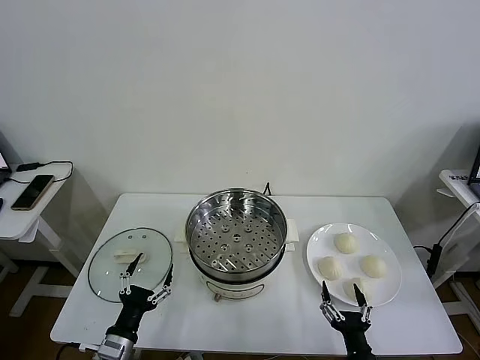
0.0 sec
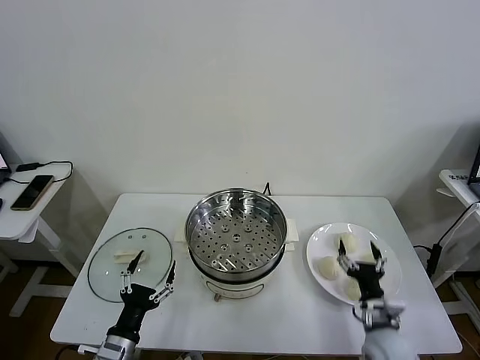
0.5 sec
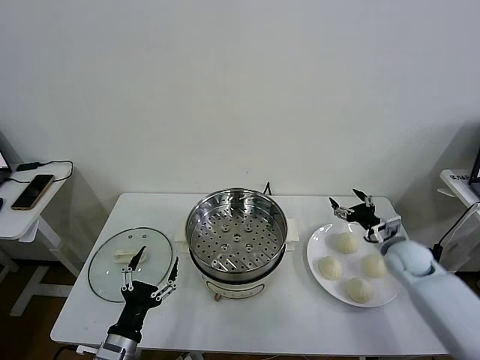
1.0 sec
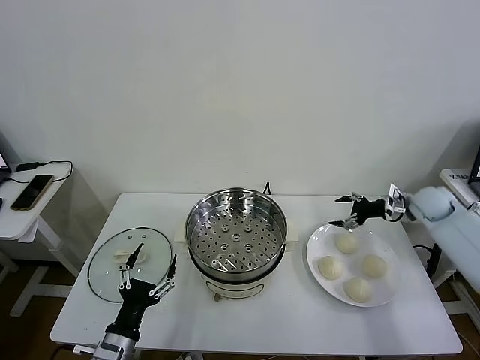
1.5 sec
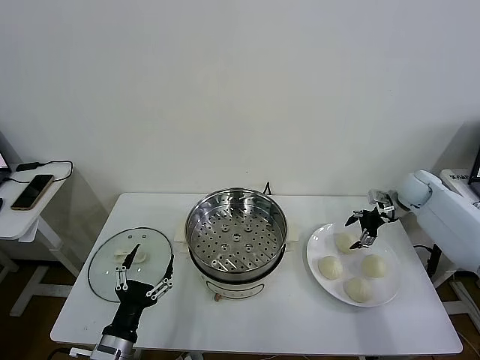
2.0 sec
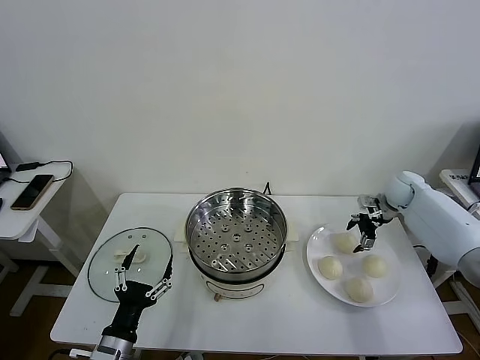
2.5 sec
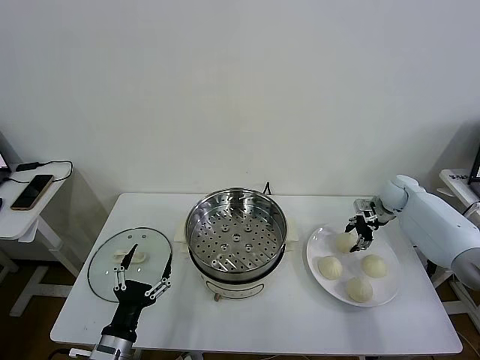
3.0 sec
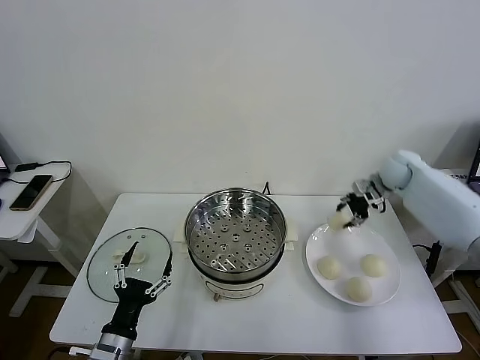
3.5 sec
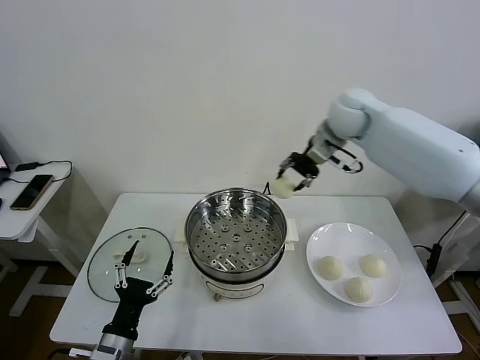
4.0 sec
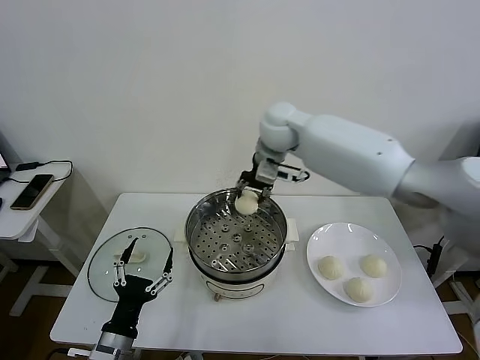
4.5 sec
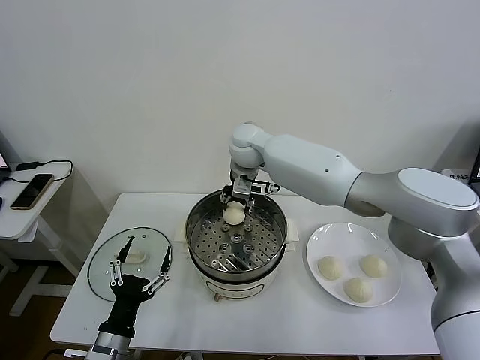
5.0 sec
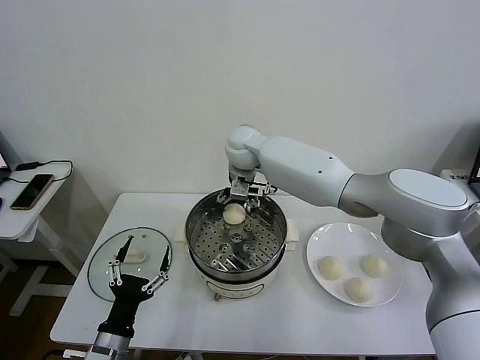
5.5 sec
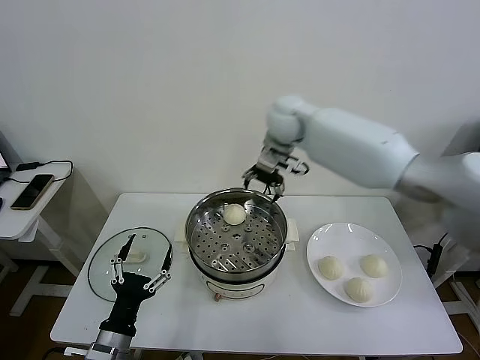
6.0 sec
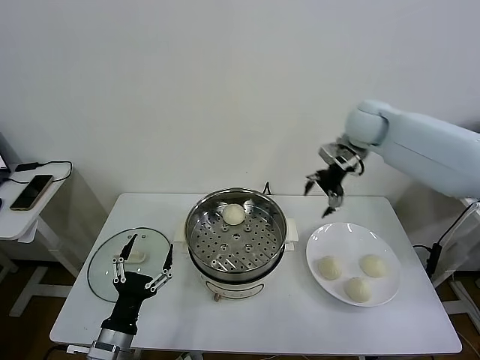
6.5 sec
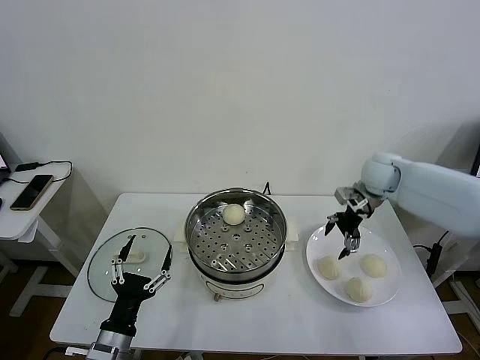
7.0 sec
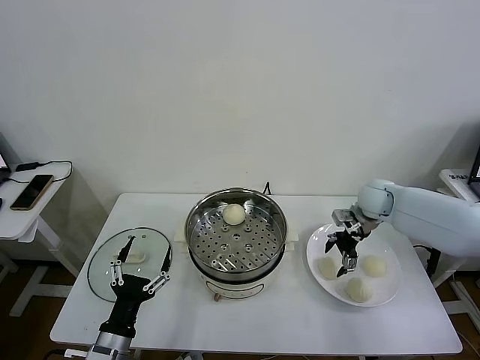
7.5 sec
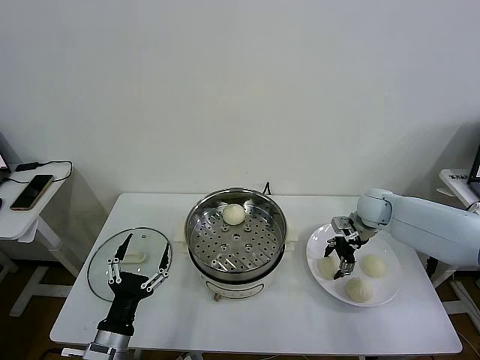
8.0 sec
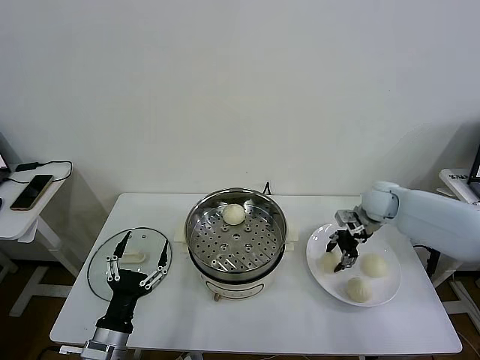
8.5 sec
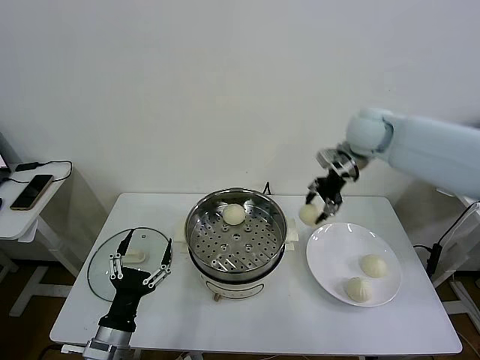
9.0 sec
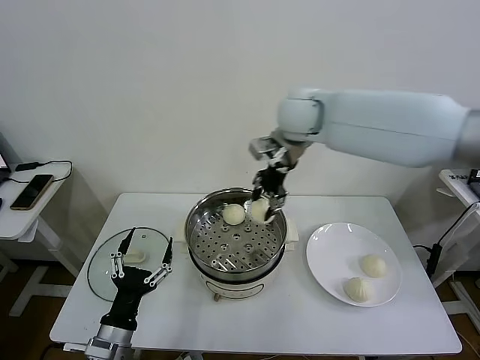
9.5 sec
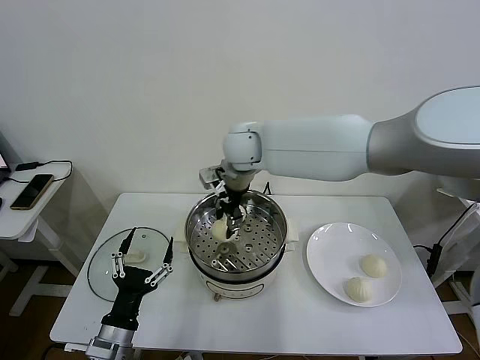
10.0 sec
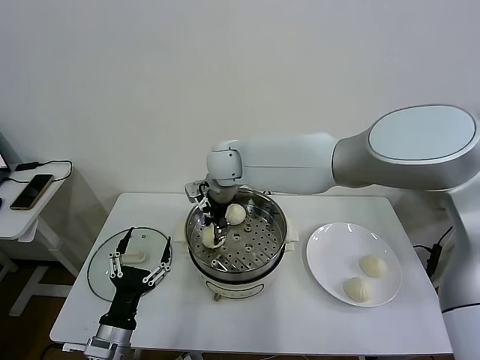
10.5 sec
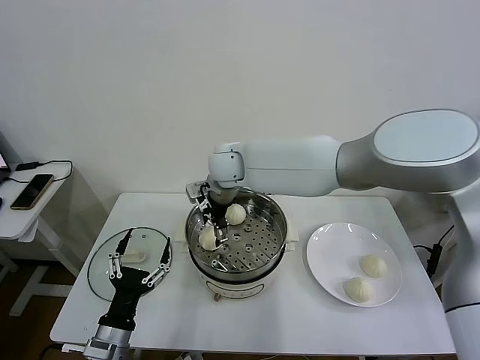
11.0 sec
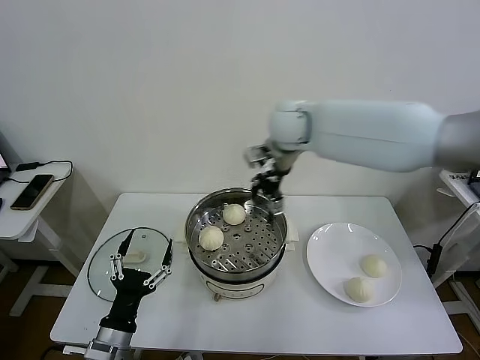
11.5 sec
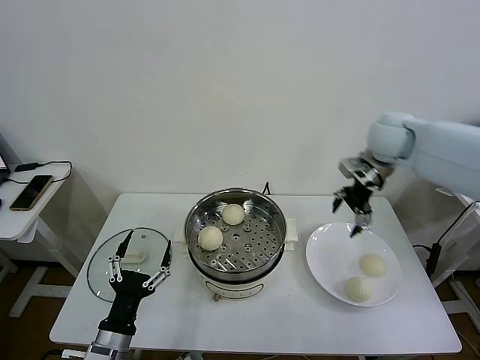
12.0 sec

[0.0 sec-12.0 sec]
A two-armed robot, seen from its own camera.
Task of the whole recording: take steamed baozi put them in steamer then cover it.
Step, 0.0 sec to 3.0 sec: Grasp the baozi in the plate with right gripper.
Step, 3.5 sec to 5.0 sec: Place the baozi on the steamer with right gripper.
Step, 5.5 sec to 8.0 sec: Grasp the baozi in the plate with right gripper.
Step, 8.5 sec to 10.5 sec: Place the baozi on the steamer with right gripper.
2.0 sec to 4.0 sec: The right gripper heads to the left and upward, covering about 35 cm, and closes its fingers.
4.0 sec to 6.0 sec: The right gripper goes to the left and returns, roughly 15 cm each way, and opens.
6.0 sec to 8.0 sec: The right gripper travels downward and to the right by about 30 cm, and closes up.
8.0 sec to 10.0 sec: The right gripper goes approximately 40 cm to the left and upward, and closes its fingers.
10.0 sec to 12.0 sec: The right gripper heads to the right, covering roughly 35 cm, and opens its fingers.

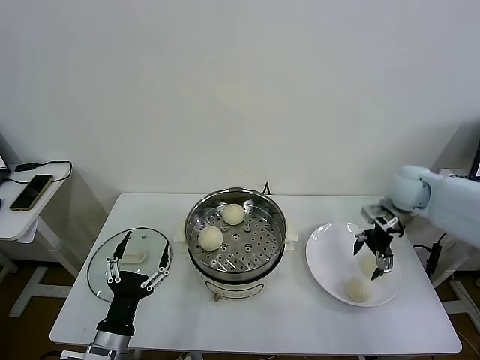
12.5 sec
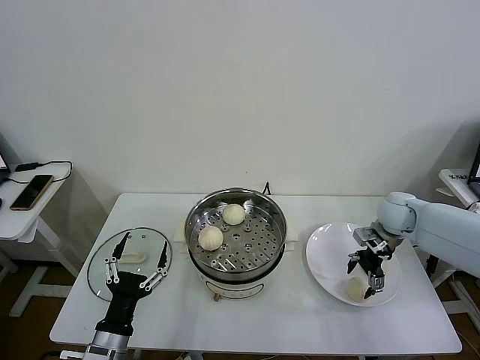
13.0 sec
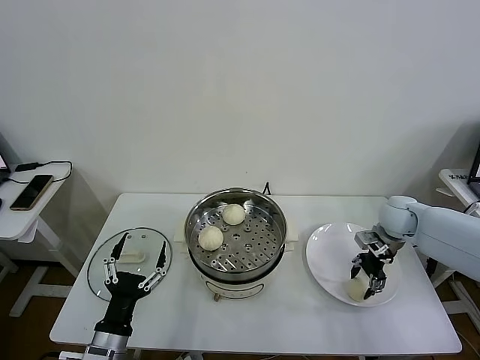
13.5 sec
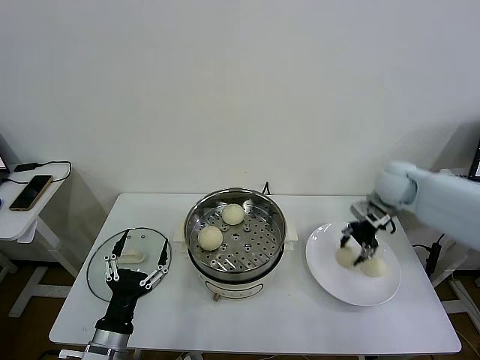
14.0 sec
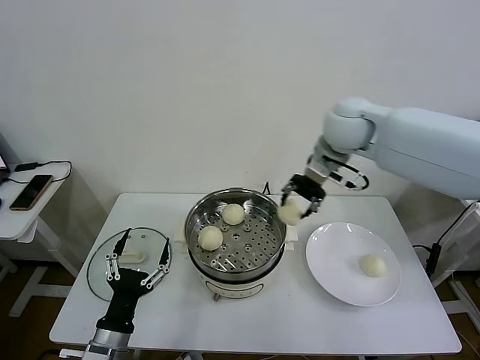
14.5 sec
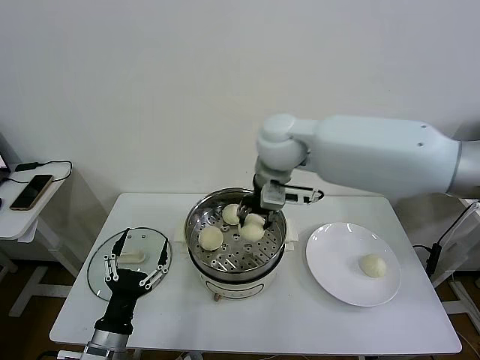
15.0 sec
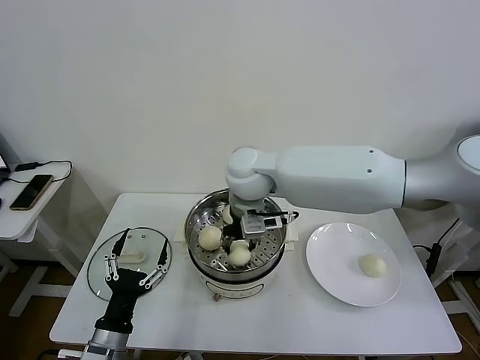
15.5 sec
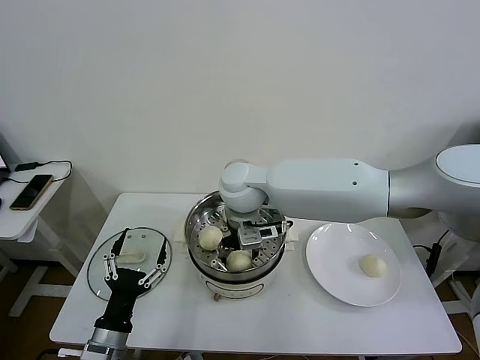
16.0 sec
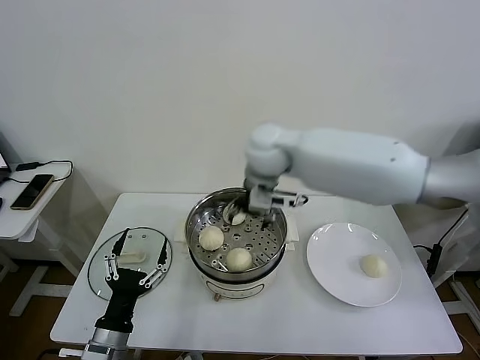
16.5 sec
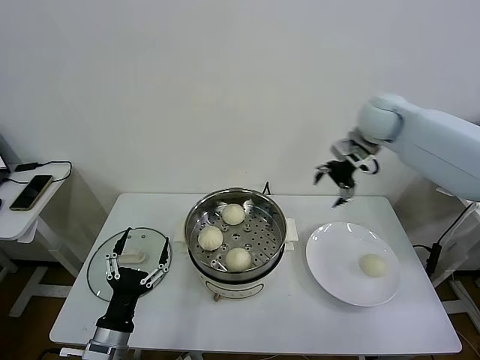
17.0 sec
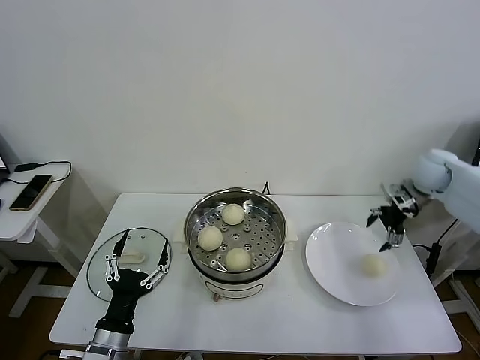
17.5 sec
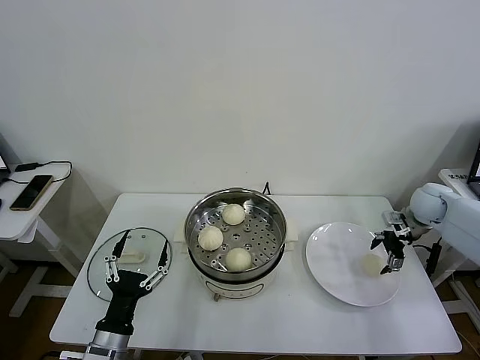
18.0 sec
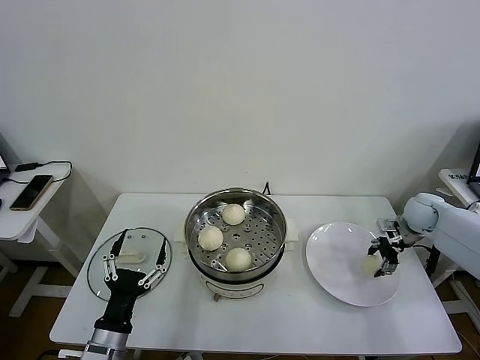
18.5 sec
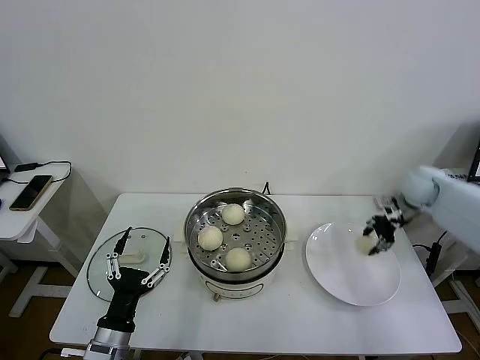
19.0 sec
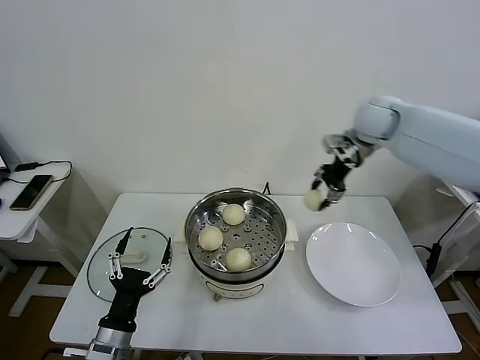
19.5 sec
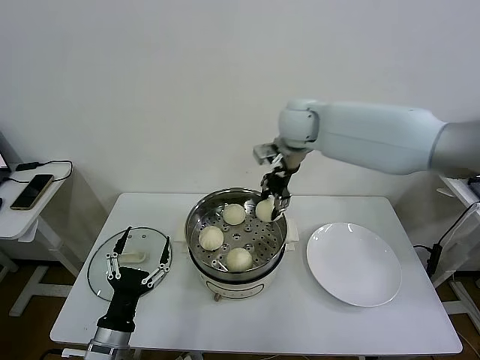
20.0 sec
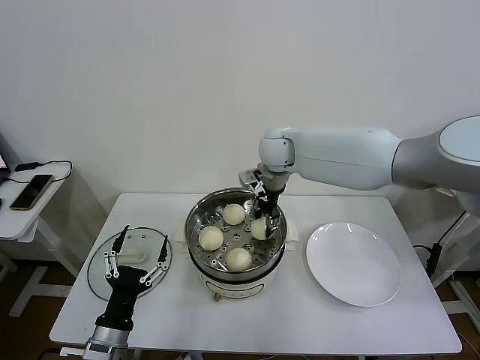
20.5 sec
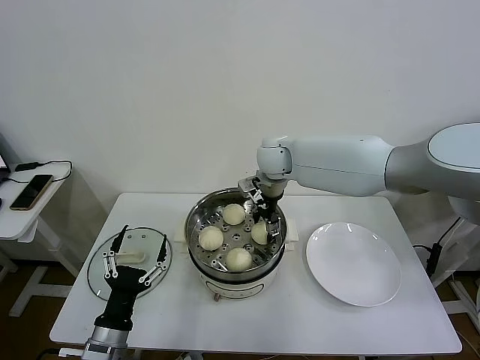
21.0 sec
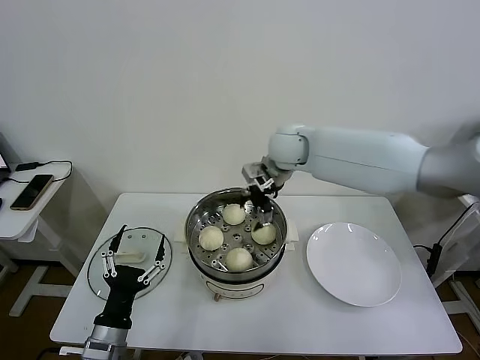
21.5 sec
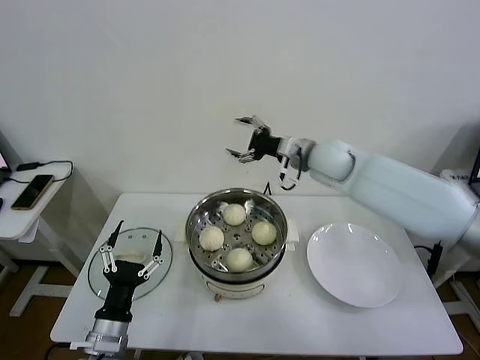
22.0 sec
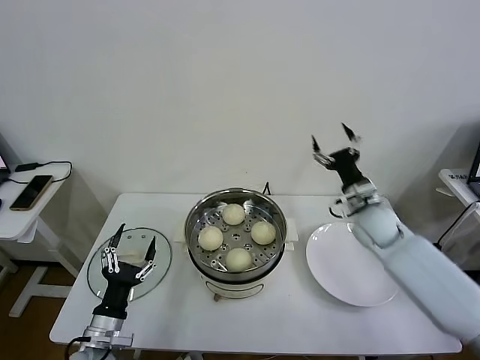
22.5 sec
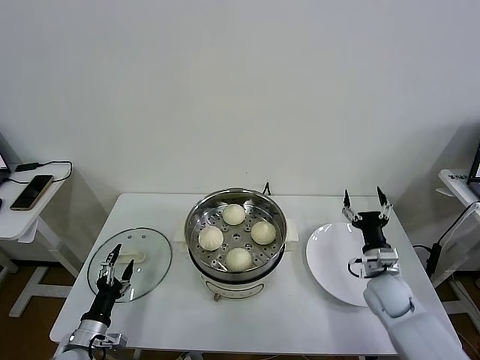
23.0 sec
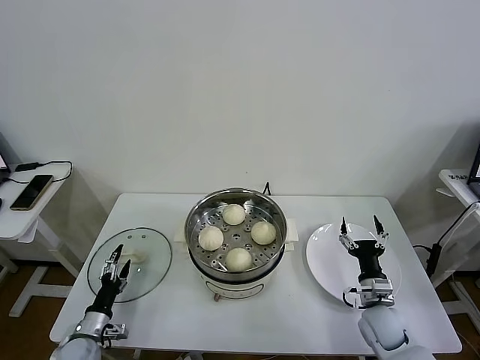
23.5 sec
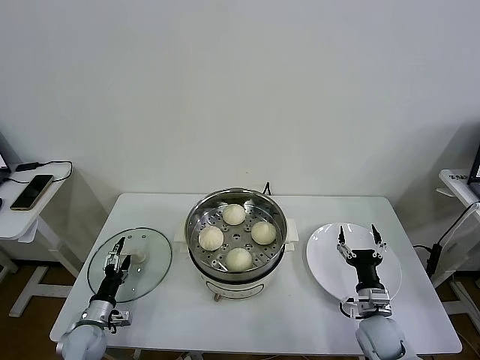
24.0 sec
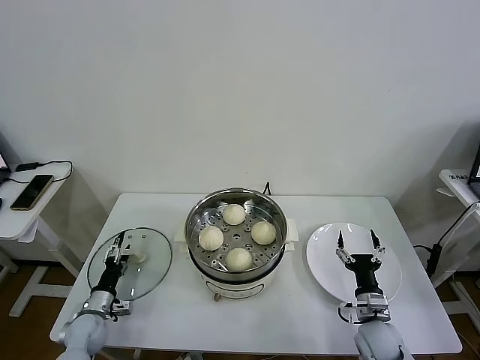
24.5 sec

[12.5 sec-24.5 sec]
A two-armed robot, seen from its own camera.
Task of the whole recording: take steamed baozi put them in steamer then cover it.
Step, 14.0 sec to 16.0 sec: Place the baozi on the steamer with right gripper.
Step, 16.5 sec to 18.5 sec: Grasp the baozi in the plate with right gripper.
Step, 19.0 sec to 21.0 sec: Place the baozi on the steamer with right gripper.
12.5 sec to 14.5 sec: The right gripper moves to the left and upward, approximately 30 cm, and closes its fingers.
14.5 sec to 16.5 sec: The right gripper is displaced to the left by about 10 cm, and opens.
16.5 sec to 18.5 sec: The right gripper travels to the right and downward by roughly 40 cm, and closes.
18.5 sec to 20.5 sec: The right gripper heads to the left and upward, covering approximately 40 cm.
20.5 sec to 22.5 sec: The right gripper heads to the right, downward and backward, covering some 30 cm, and opens up. Meanwhile the left gripper ends up some 5 cm from where it was.
22.5 sec to 24.5 sec: The right gripper goes roughly 25 cm backward and downward. Meanwhile the left gripper travels downward, to the left and forward by some 20 cm.

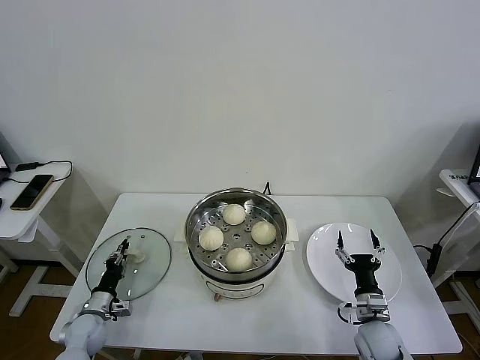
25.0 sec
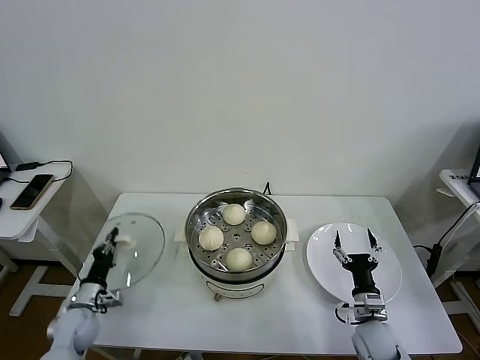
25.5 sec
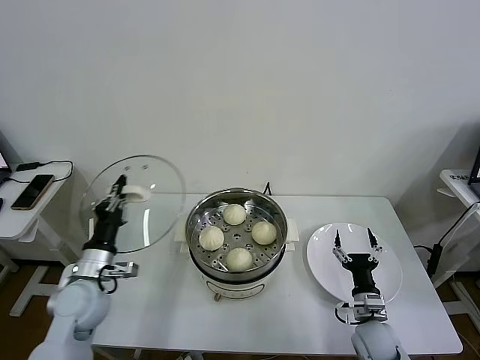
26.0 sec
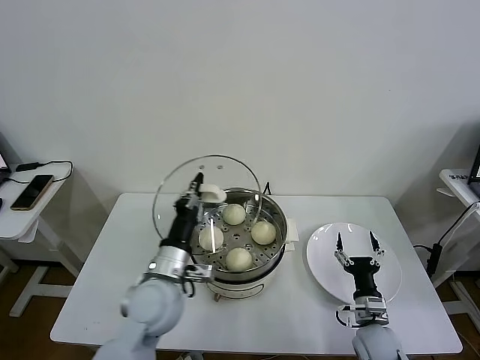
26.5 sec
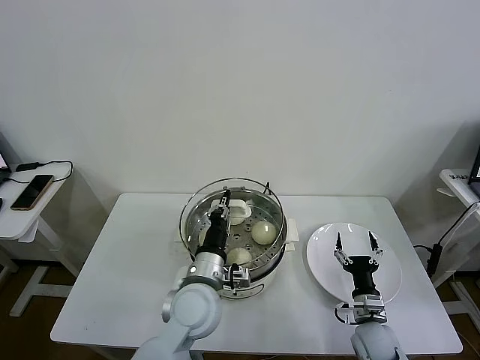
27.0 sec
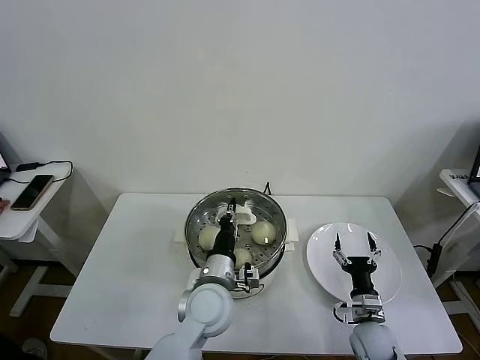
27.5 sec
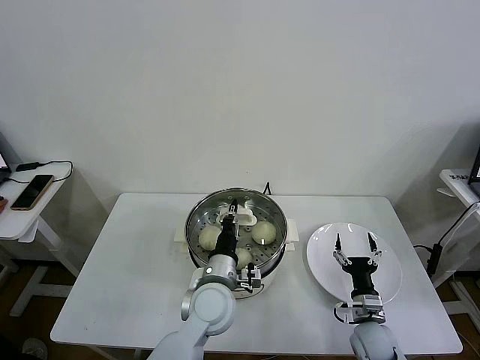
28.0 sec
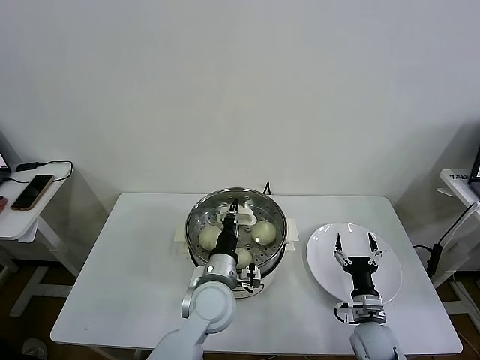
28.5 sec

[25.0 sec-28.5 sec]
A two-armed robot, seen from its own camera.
Task of the whole recording: take steamed baozi put them in steamer then cover it.
25.0 sec to 27.0 sec: The left gripper moves to the right and upward, about 40 cm.
27.0 sec to 28.5 sec: The left gripper shifts by roughly 5 cm.
